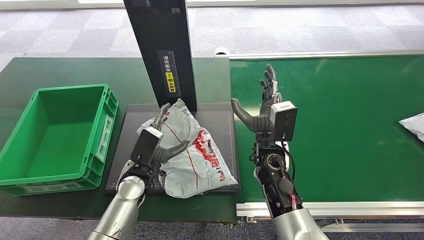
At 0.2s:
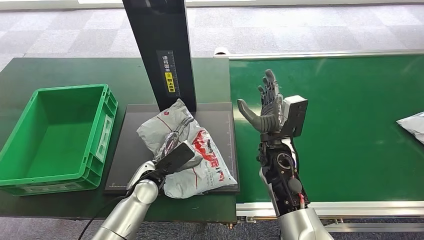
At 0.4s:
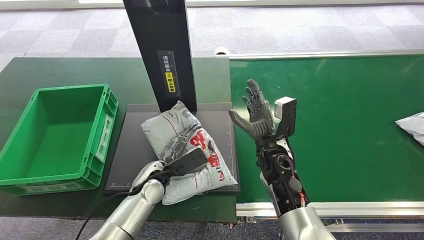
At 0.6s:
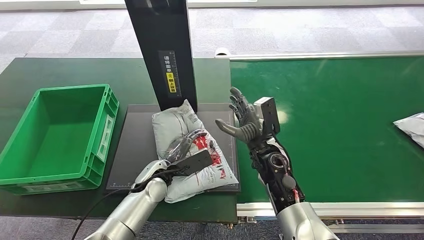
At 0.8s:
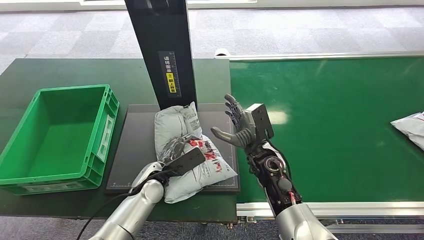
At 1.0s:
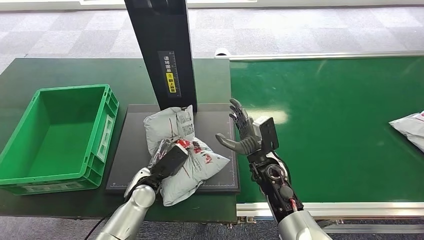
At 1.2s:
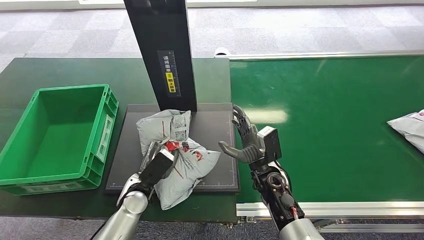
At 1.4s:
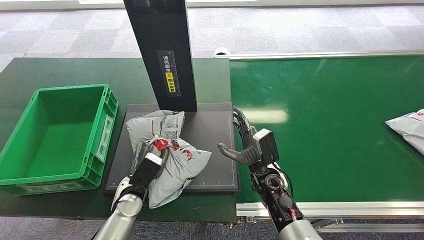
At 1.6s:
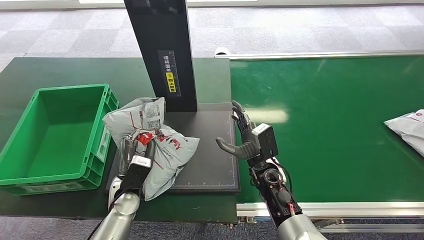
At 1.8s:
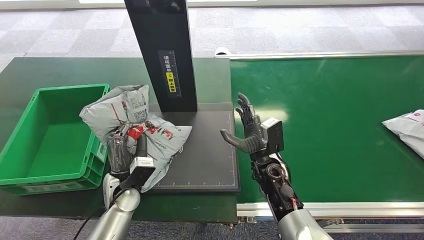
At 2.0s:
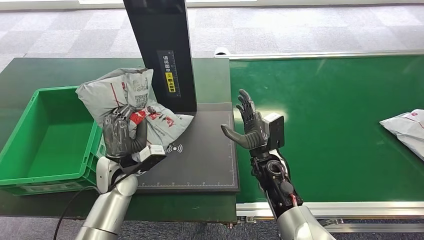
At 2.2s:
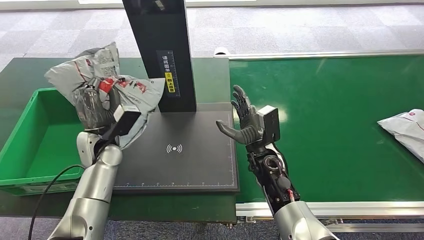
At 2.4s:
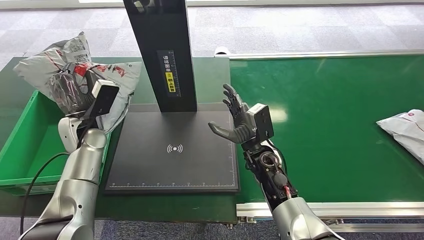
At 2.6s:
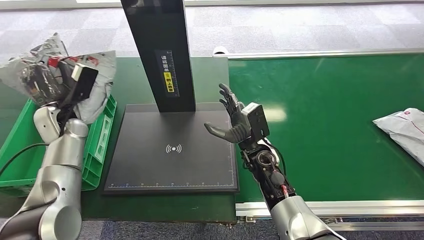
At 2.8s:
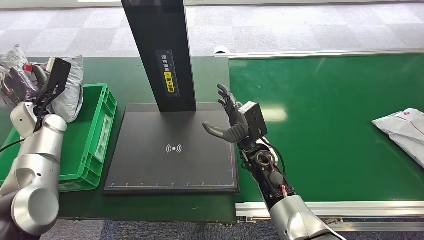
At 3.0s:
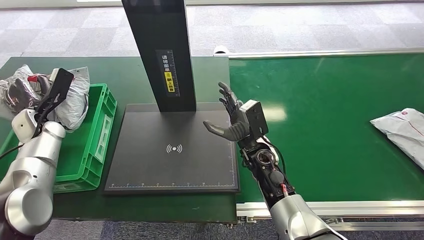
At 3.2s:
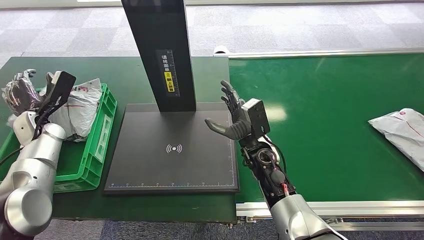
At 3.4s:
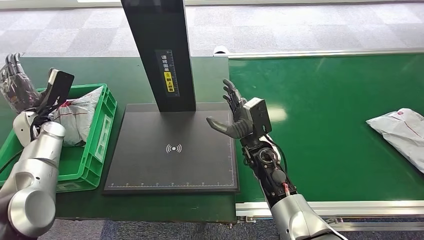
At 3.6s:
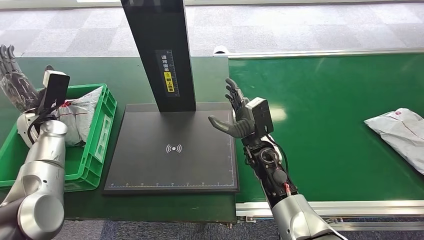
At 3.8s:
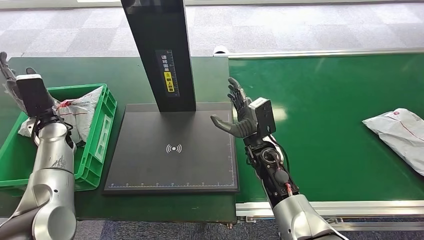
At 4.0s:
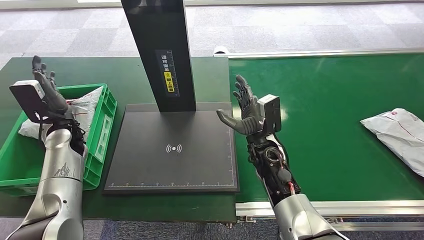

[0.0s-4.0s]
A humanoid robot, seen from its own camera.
Step, 0.4s to 1.8s: Pick up the package from the inbound machine.
Step, 2.2s to 4.0s: Place the package into the parcel locker.
0.0s to 1.4s: The right hand moves downward, some 10 cm, while the left hand shifts by approximately 5 cm.
2.6s to 4.0s: The left hand moves some 10 cm to the left and comes back.
